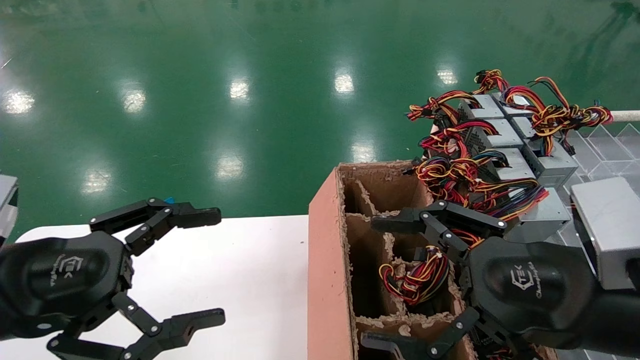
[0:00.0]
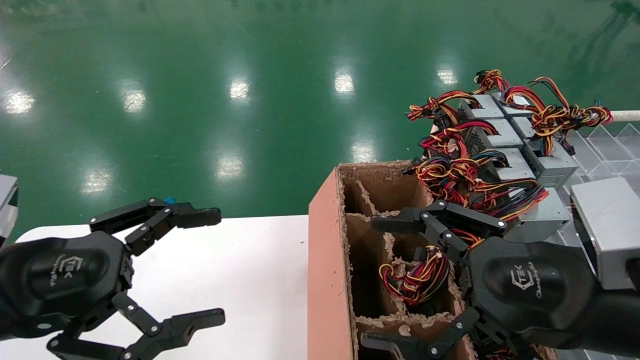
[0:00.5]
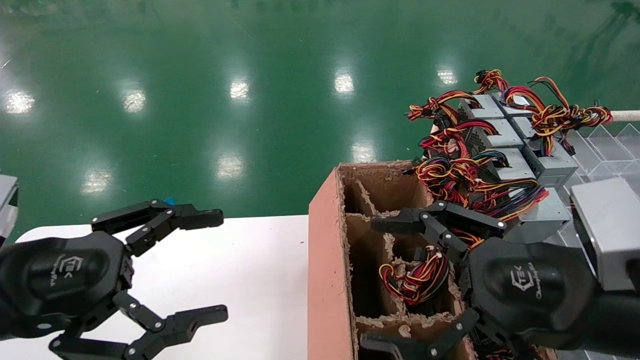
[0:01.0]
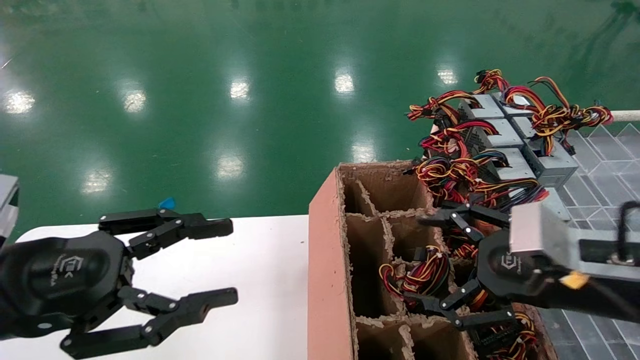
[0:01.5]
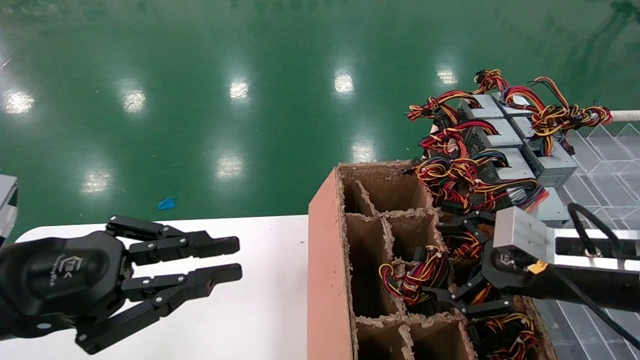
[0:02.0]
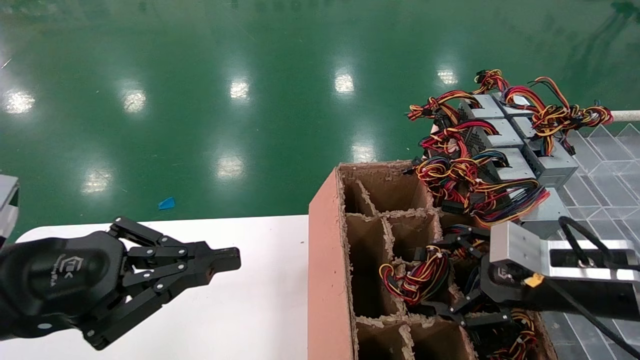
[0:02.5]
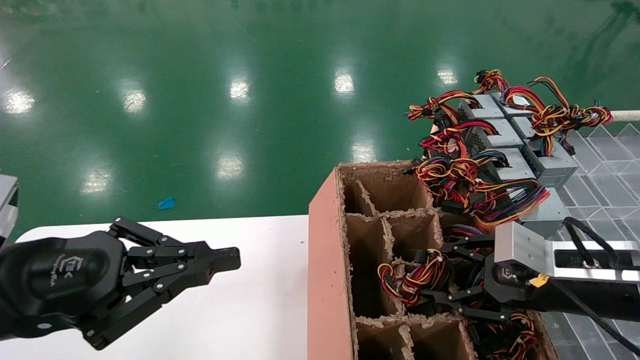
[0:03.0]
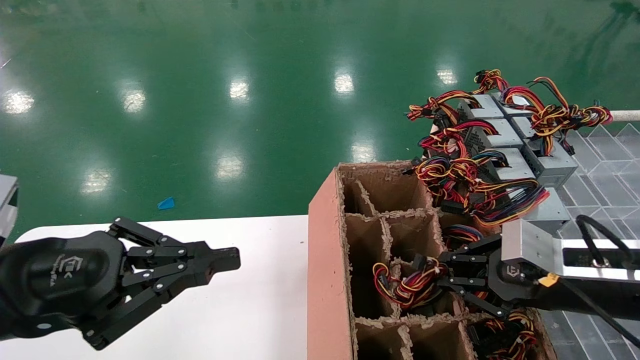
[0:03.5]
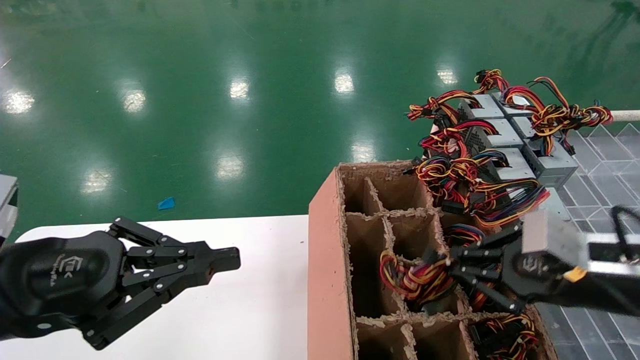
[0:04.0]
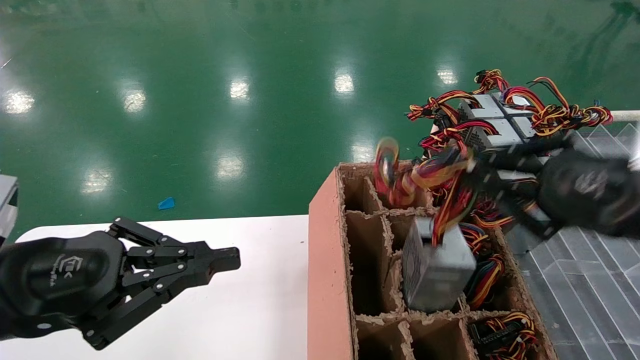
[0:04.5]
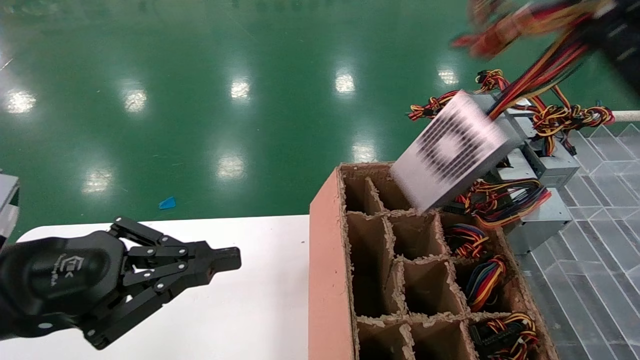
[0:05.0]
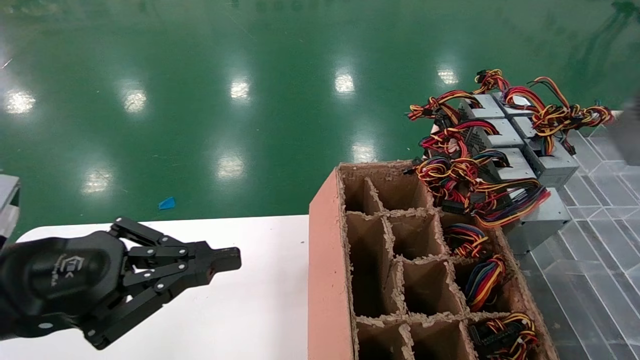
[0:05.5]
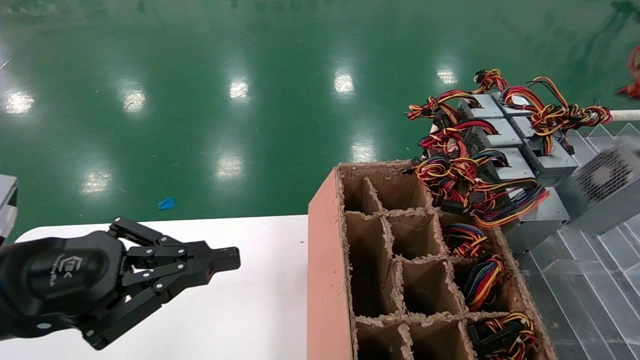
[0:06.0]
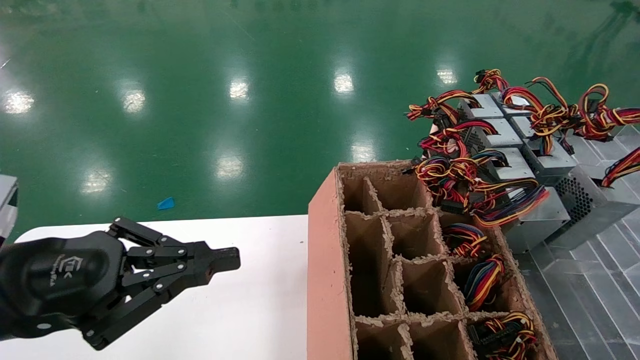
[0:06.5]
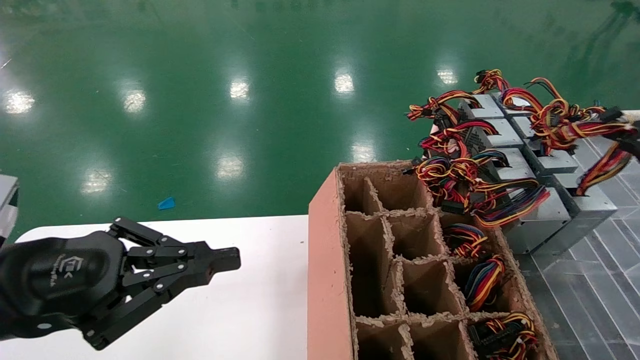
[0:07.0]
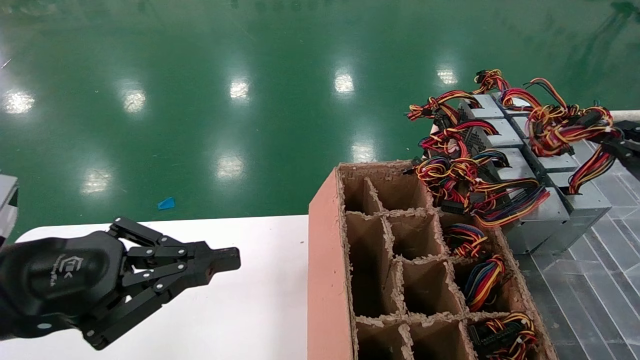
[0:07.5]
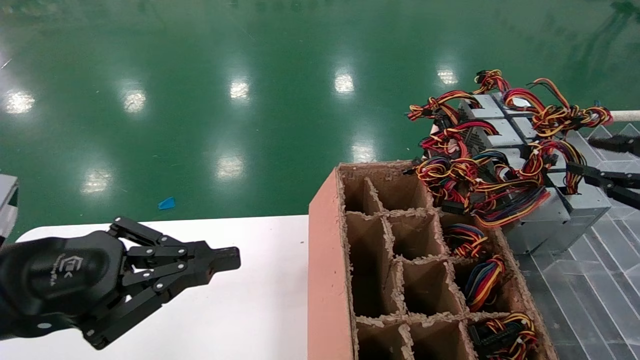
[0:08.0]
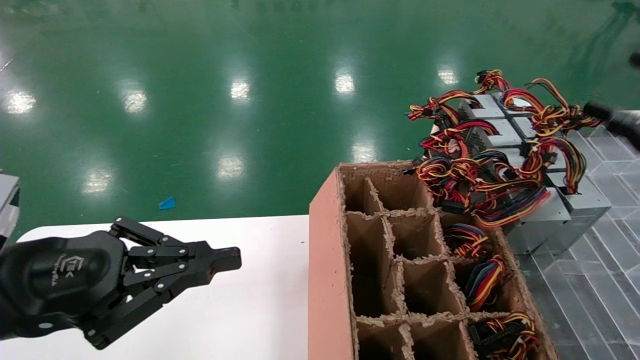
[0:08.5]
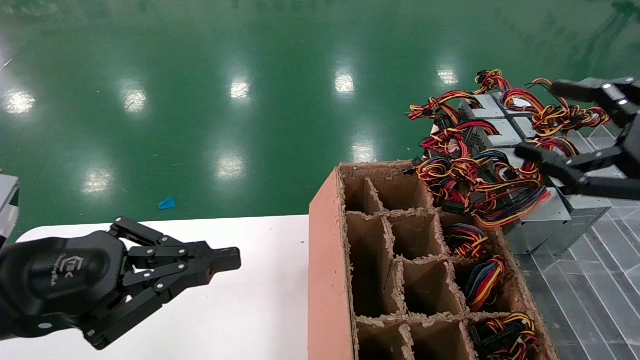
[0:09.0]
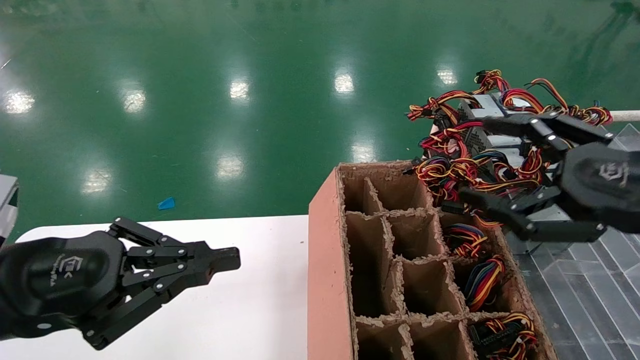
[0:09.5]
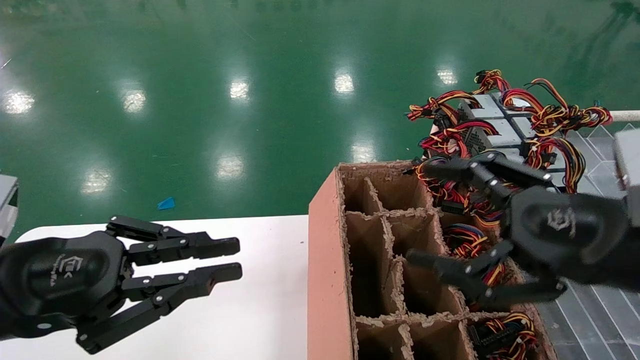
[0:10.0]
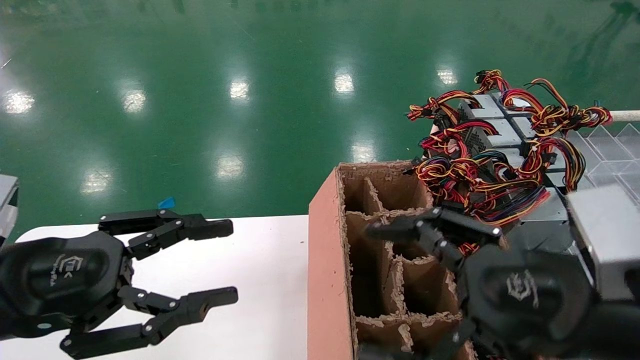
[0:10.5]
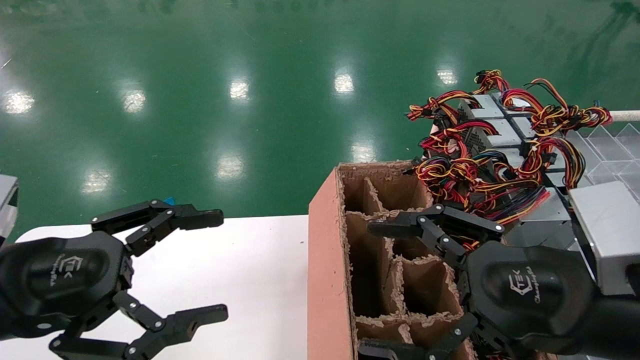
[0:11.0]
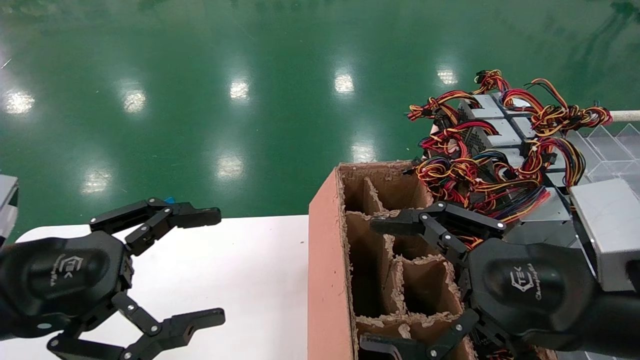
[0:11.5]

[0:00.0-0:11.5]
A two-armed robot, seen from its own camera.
Step, 0:01.5 to 0:03.5: Grab the main unit power supply from the containment box.
Step, 0:04.0 to 0:08.0: Place the main unit power supply in the designated area.
0:00.0 to 0:02.0: The right gripper moves forward and to the right, roughly 10 cm; the left gripper closes its fingers.
0:02.0 to 0:04.0: The right gripper closes its fingers.
0:04.0 to 0:06.0: The right gripper travels to the right and upward by approximately 25 cm.
0:06.0 to 0:07.5: The right gripper ends up some 5 cm from where it was.
0:07.5 to 0:09.5: The right gripper is displaced to the left by approximately 15 cm, and opens.
0:09.5 to 0:11.5: The left gripper opens its fingers. The right gripper is displaced to the left by some 10 cm.

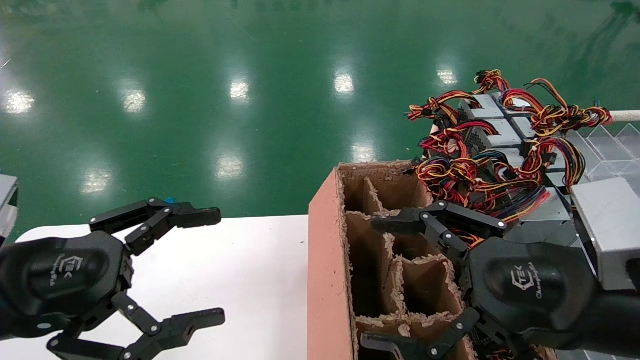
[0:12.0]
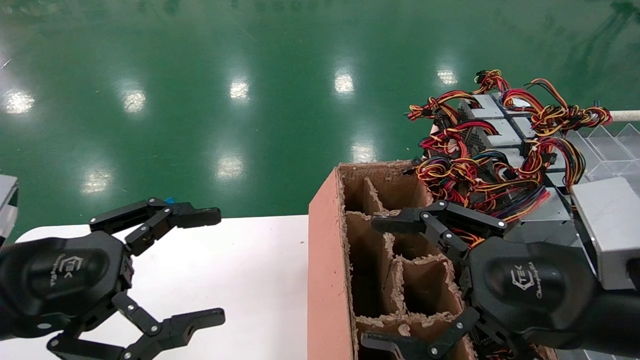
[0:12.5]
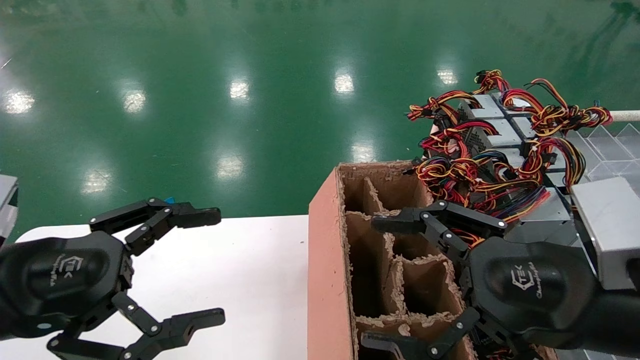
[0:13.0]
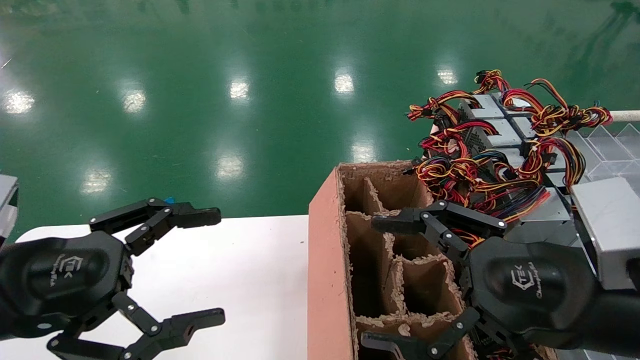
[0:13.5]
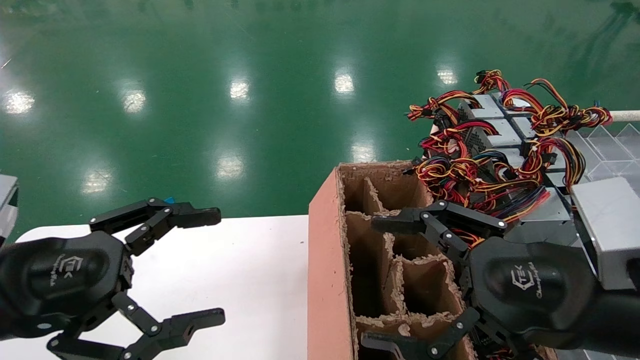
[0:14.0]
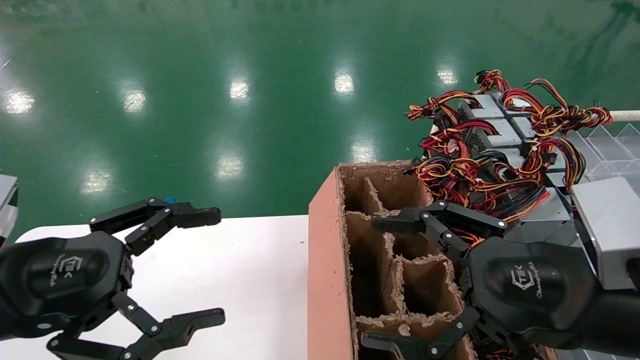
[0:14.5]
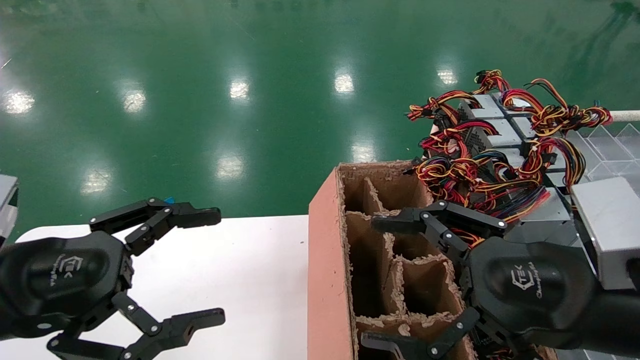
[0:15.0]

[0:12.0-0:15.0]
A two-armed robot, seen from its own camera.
0:12.0 to 0:15.0: The two grippers keep their place.
